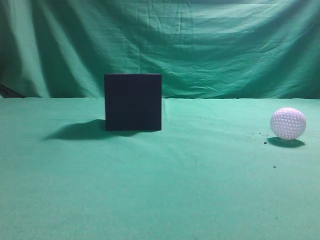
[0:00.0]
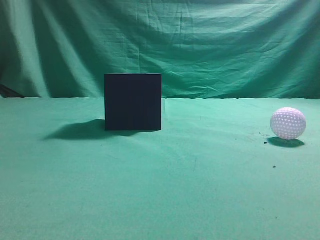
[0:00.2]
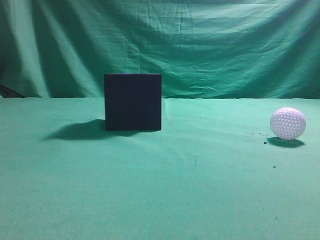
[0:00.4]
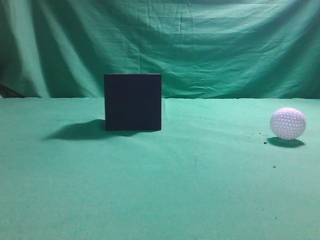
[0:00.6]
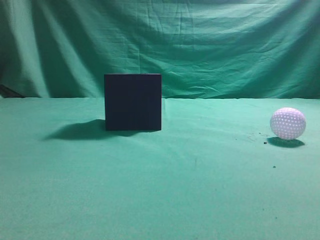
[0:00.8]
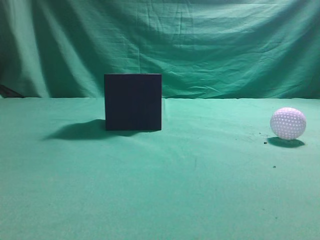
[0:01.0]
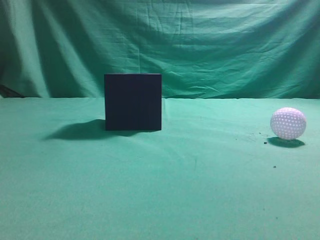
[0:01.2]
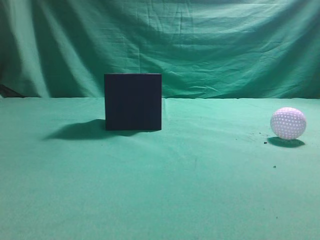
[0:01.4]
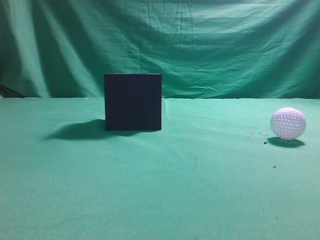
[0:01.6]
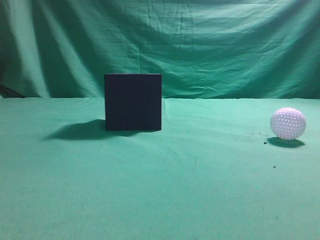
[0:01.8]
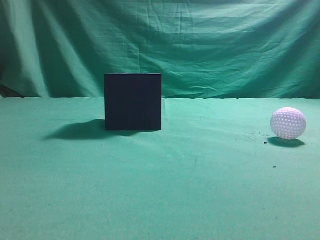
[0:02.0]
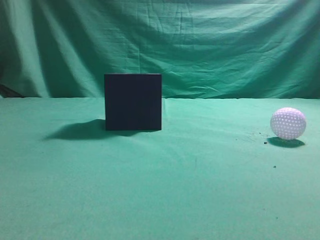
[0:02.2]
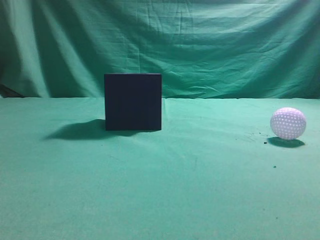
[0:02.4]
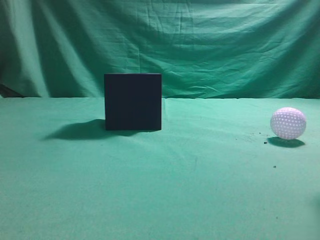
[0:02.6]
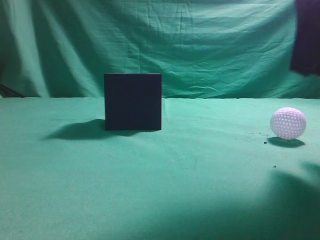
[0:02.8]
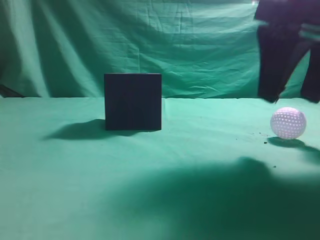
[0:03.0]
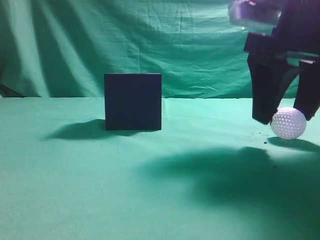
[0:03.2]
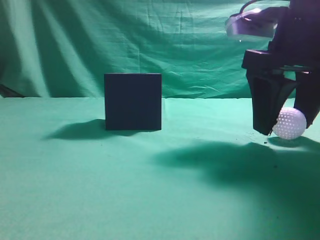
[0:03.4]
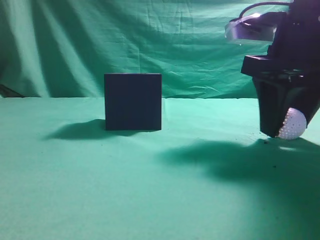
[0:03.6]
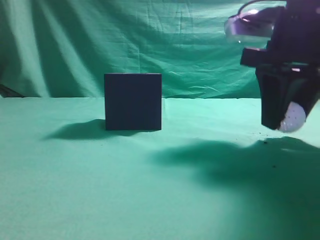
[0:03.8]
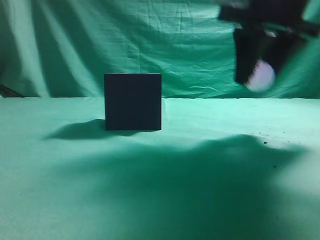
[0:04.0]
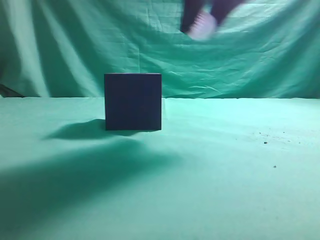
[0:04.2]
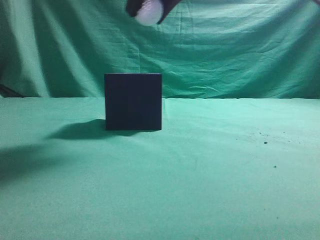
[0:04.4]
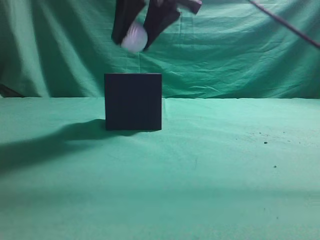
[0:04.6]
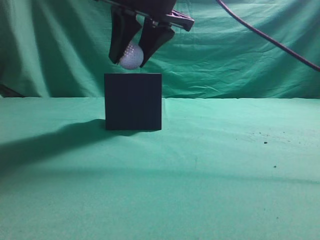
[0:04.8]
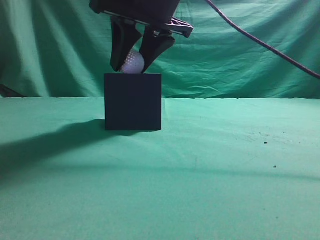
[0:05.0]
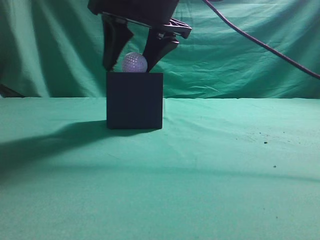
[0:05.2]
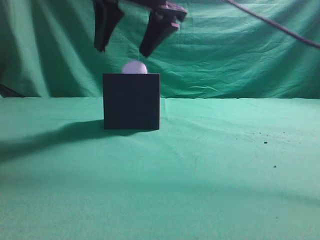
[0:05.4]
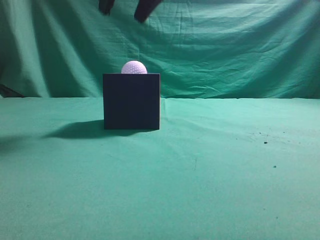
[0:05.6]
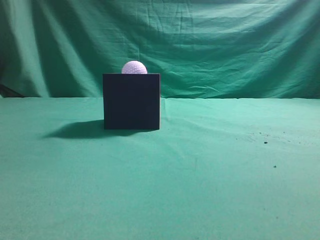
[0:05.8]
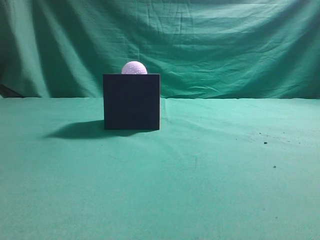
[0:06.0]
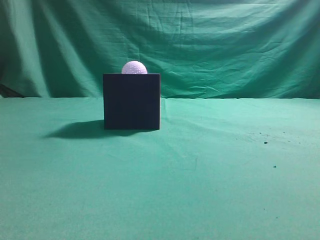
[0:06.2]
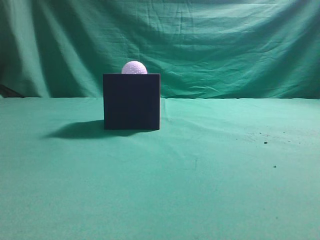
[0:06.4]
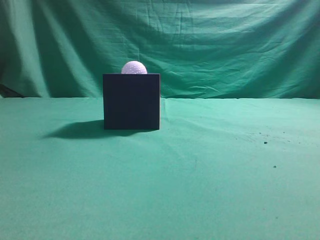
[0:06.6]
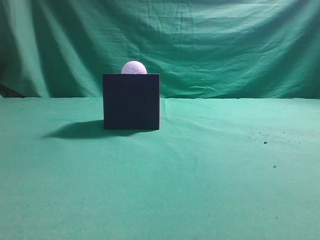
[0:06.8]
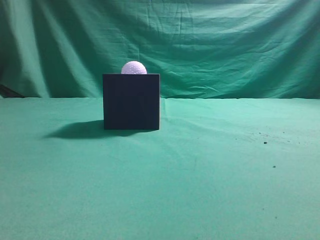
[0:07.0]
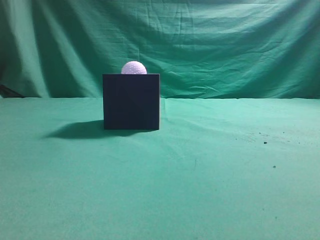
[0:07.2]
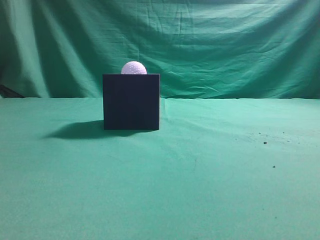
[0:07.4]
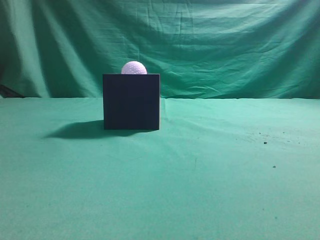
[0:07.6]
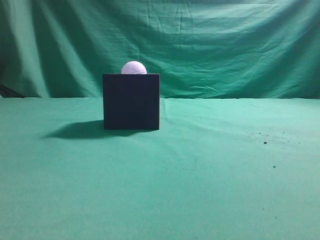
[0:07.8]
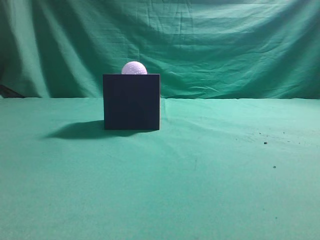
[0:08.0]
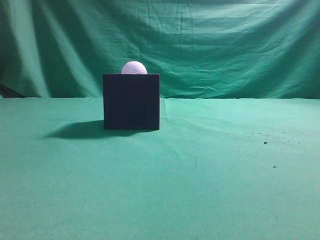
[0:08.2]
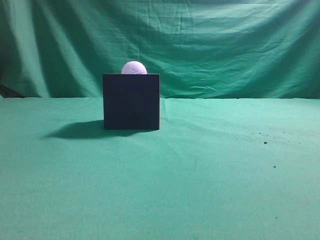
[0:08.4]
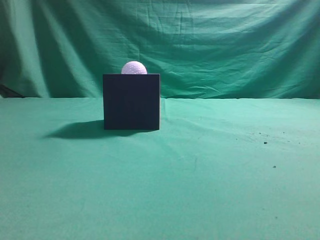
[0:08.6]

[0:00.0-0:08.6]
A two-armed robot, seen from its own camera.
Task of the whole recording: Pick up the ball and place it in the circular groove above the cube.
Step, 0:00.0 to 0:03.8: Grasp the sphere on the table.
Step, 0:04.0 to 0:05.4: Place the sphere into the sphere-shaped recess.
0:01.4 to 0:02.8: The right gripper goes approximately 20 cm forward and to the left.
0:02.8 to 0:04.4: The right gripper is displaced to the left, forward and upward by about 15 cm, and opens, then closes again.
0:04.4 to 0:05.8: The right gripper is displaced upward by some 5 cm, and opens and closes again.

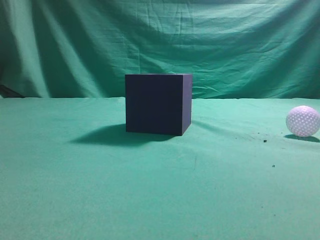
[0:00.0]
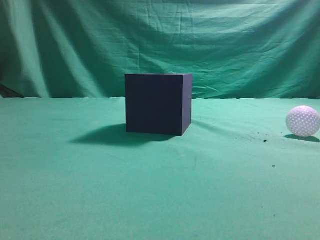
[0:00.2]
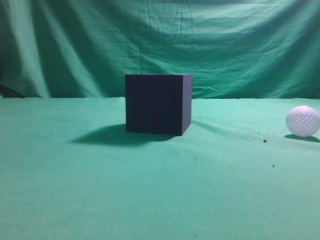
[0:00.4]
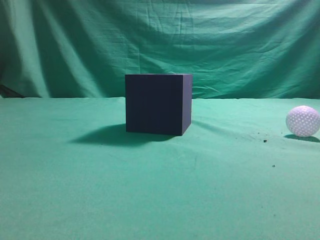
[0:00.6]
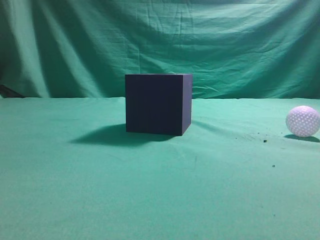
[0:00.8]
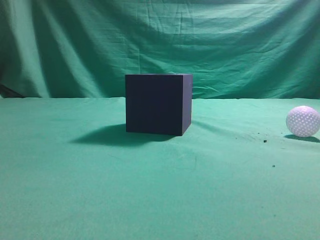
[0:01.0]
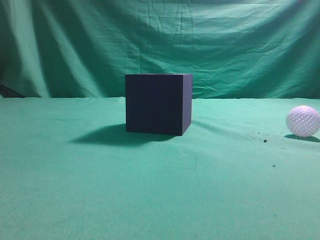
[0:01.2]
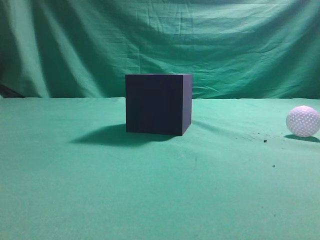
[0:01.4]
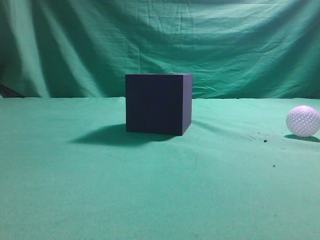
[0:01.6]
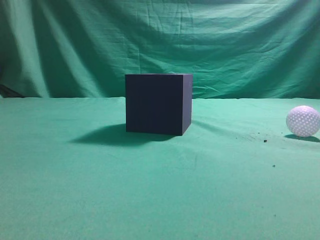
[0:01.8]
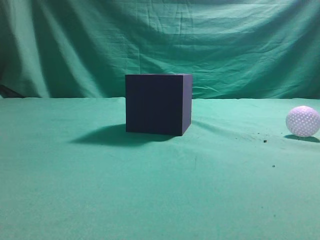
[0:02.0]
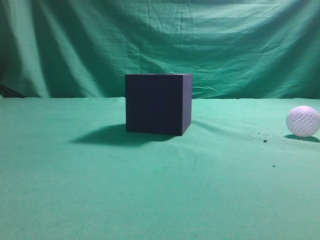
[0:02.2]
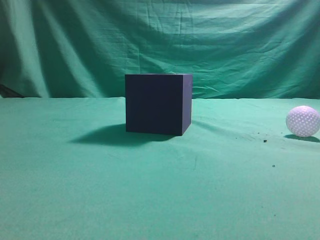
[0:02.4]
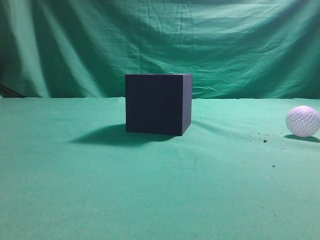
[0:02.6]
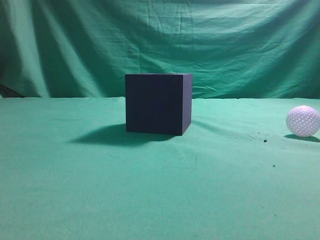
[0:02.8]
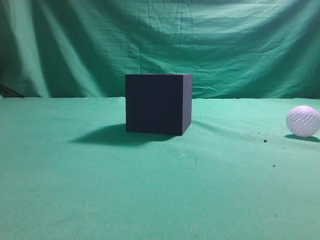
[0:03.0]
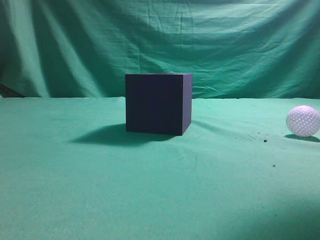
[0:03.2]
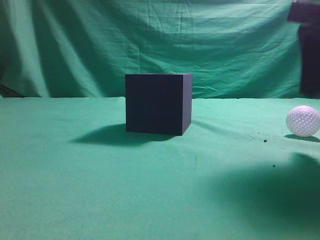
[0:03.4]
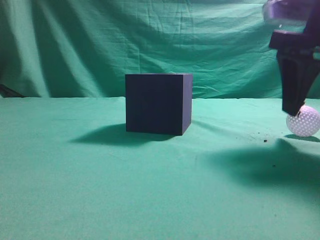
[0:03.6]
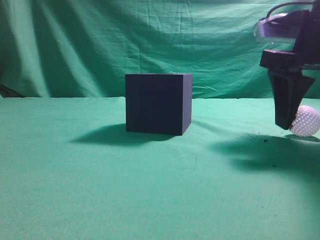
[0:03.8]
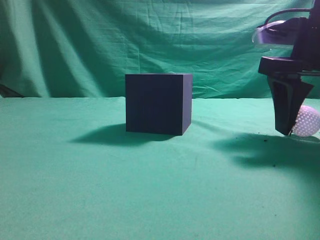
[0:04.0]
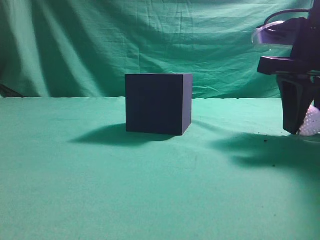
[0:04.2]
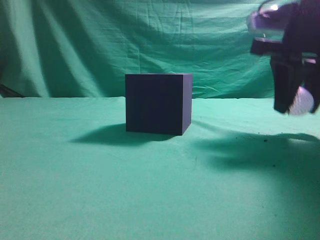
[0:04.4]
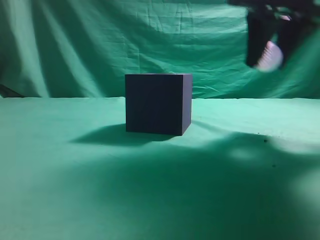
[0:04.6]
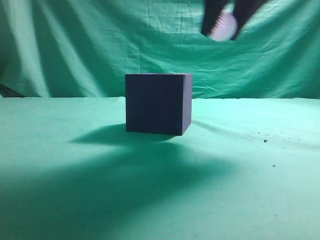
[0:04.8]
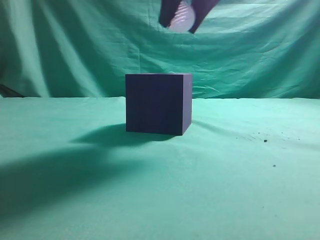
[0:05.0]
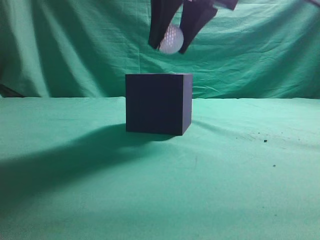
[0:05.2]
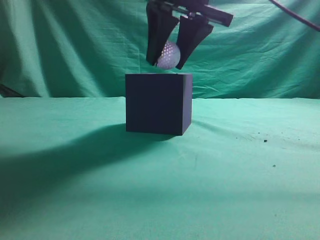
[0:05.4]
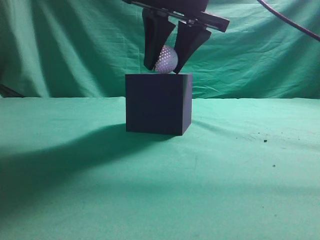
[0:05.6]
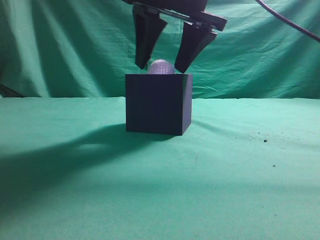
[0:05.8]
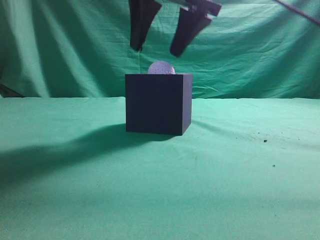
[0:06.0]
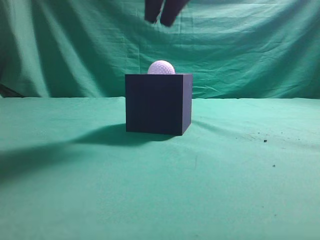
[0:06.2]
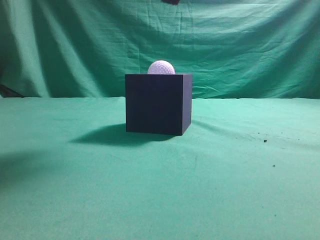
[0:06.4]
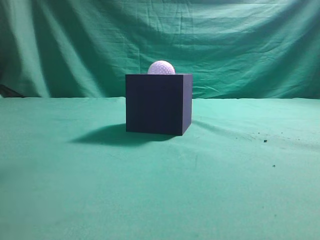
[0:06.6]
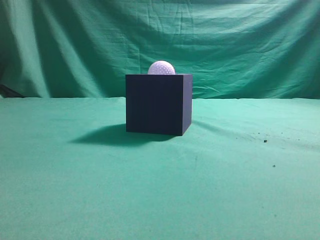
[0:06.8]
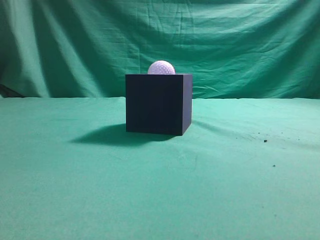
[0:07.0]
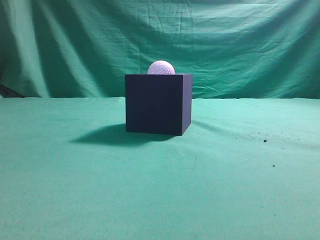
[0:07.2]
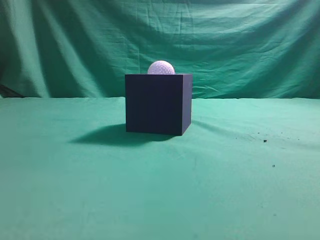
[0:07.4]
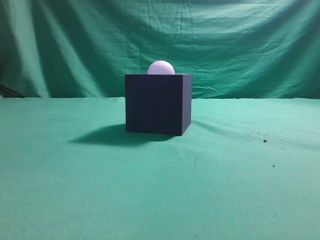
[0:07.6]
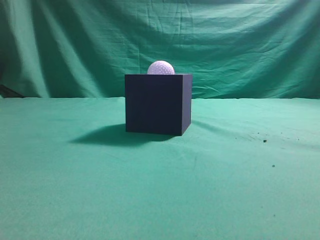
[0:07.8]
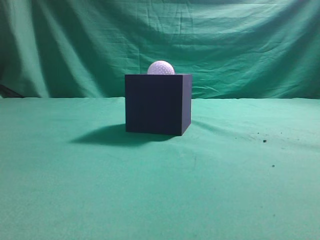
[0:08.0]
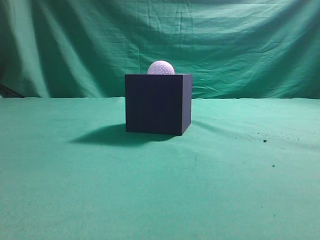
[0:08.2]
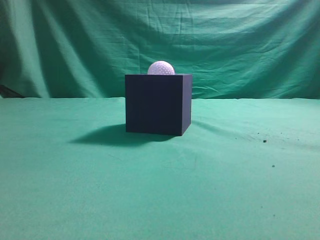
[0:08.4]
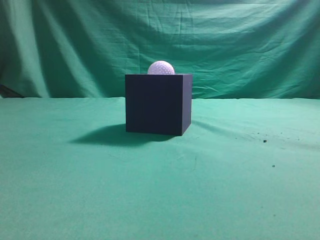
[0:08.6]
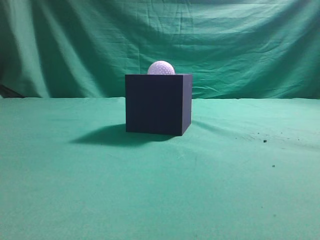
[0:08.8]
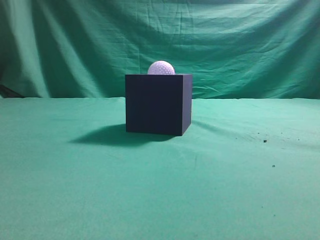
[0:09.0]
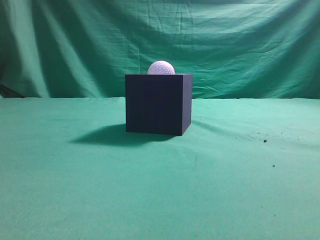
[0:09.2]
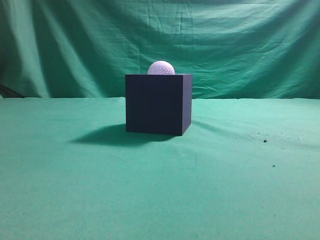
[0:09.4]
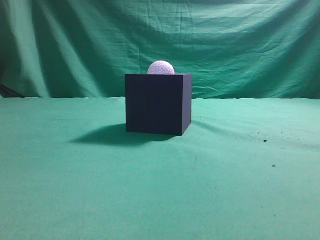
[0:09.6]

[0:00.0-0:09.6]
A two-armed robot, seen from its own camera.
Task of the whole recording: Pick up the ball and place it in the circular groove above the cube.
Step, 0:00.0 to 0:04.4: Grasp the sphere on the table.
Step, 0:04.6 to 0:06.0: Place the sphere into the sphere-shaped recess.
0:01.6 to 0:03.2: The right gripper goes some 15 cm forward.
0:03.2 to 0:04.8: The right gripper heads to the left and forward, covering roughly 15 cm, and opens, then closes once more.
0:04.8 to 0:06.4: The right gripper is displaced to the left and upward by approximately 10 cm, and closes.

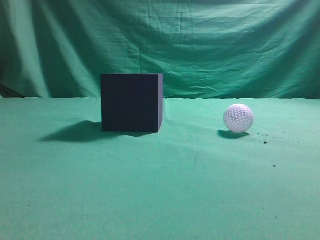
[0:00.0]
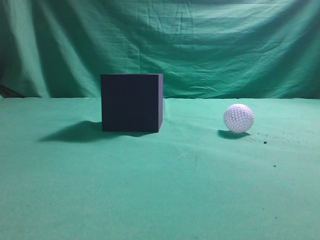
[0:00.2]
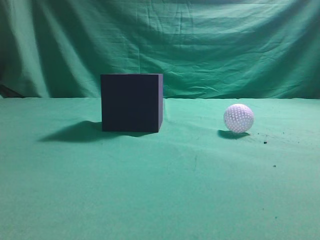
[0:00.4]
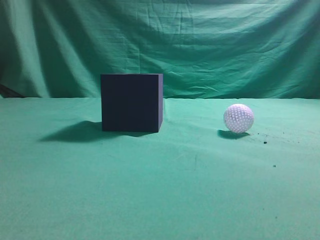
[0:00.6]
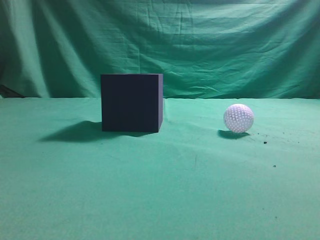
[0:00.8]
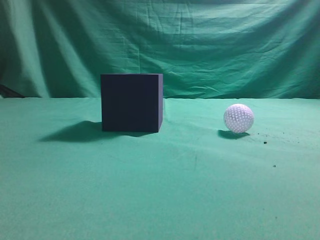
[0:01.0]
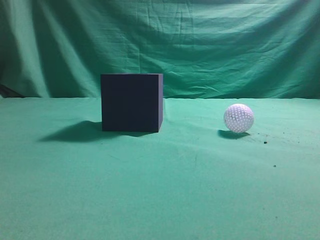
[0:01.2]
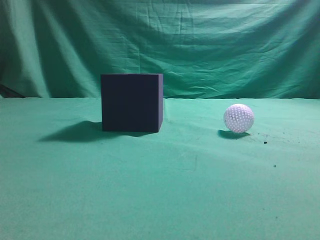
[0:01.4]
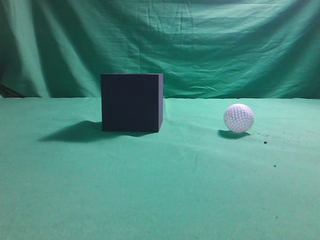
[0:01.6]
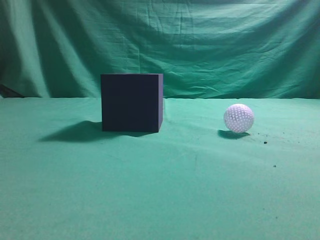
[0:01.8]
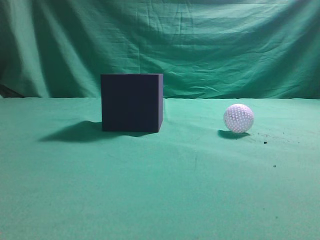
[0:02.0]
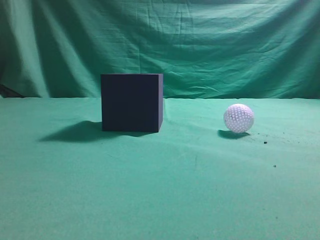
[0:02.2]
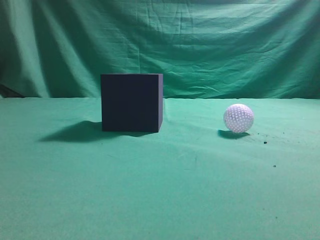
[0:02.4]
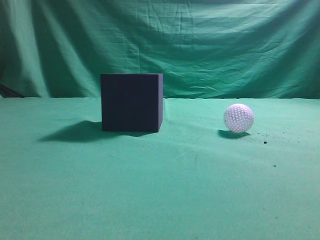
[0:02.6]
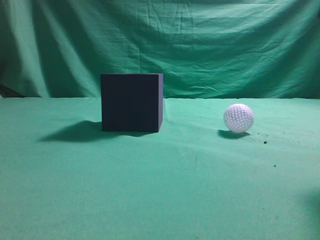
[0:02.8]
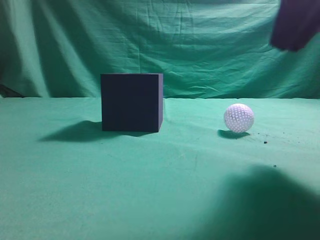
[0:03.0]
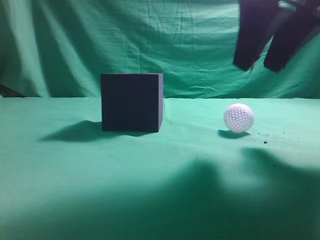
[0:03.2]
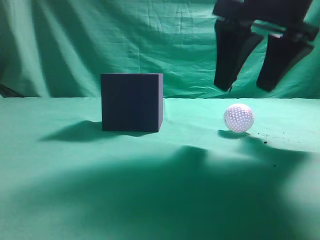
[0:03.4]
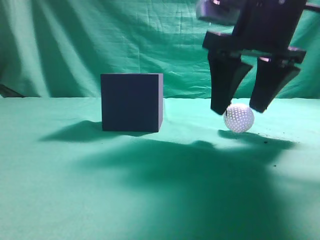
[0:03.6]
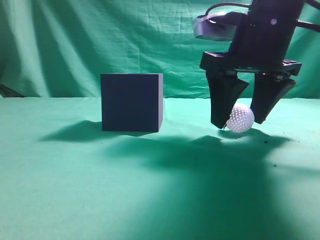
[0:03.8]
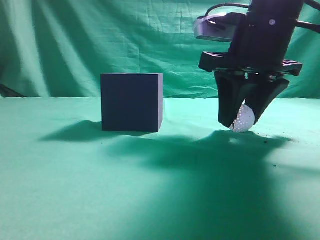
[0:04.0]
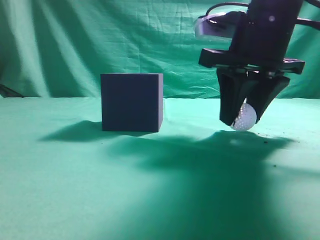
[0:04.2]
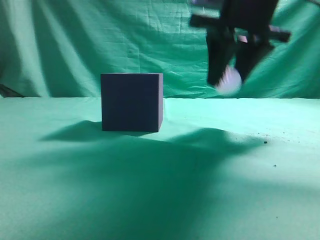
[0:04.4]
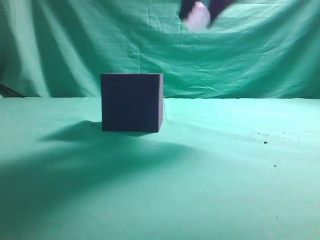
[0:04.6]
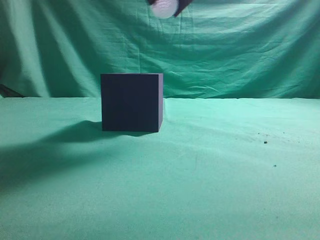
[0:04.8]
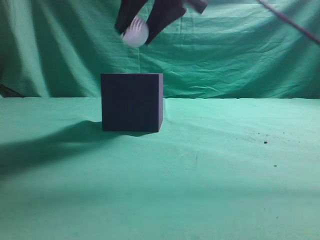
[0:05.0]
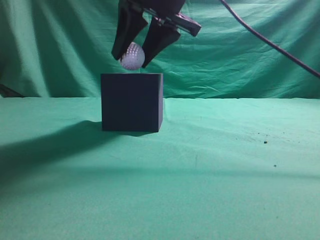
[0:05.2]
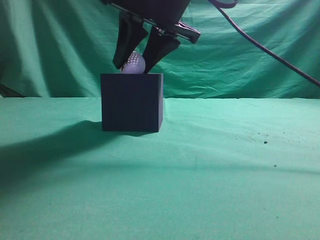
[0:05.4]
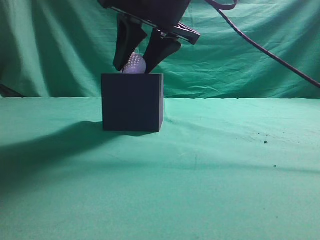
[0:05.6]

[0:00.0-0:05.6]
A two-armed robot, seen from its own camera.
Task of the whole recording: Pick up the ball and place it in the circular groove above the cube.
Step, 0:00.0 to 0:04.2: Grasp the sphere on the table.
0:01.4 to 0:02.8: The right gripper travels forward, to the left and upward by roughly 20 cm.
0:02.8 to 0:04.2: The right gripper goes about 15 cm forward, downward and to the left, and opens up.
0:04.2 to 0:05.6: The right gripper shifts roughly 10 cm to the left and upward.
